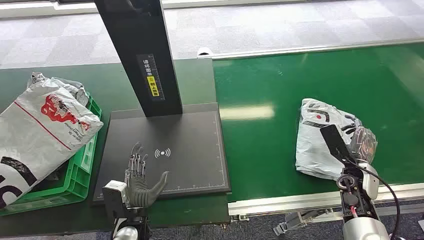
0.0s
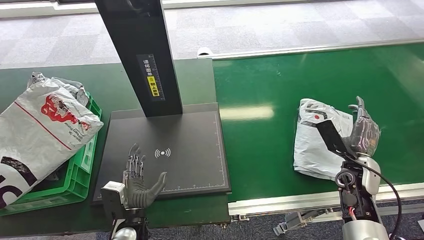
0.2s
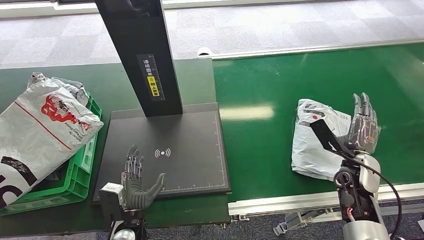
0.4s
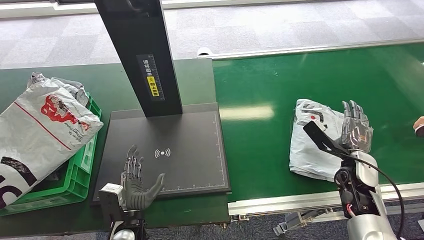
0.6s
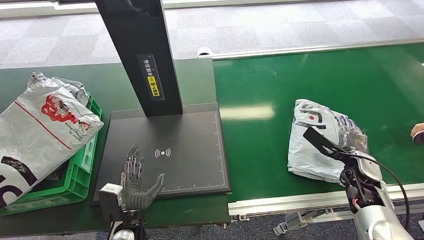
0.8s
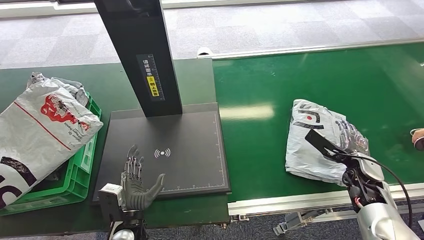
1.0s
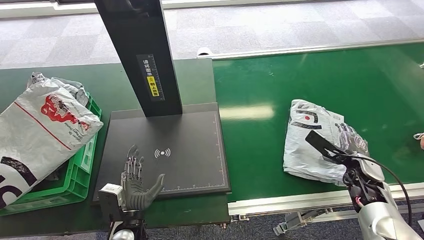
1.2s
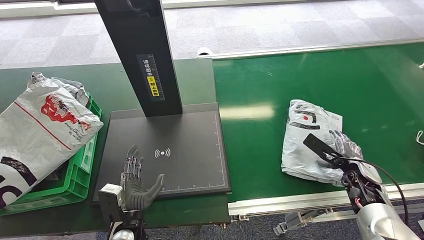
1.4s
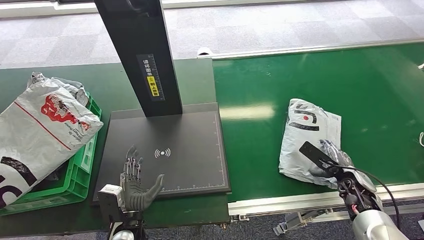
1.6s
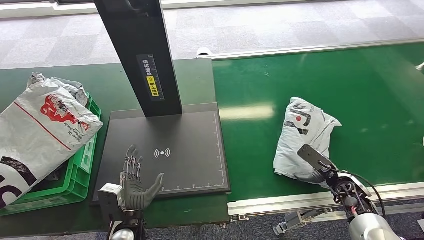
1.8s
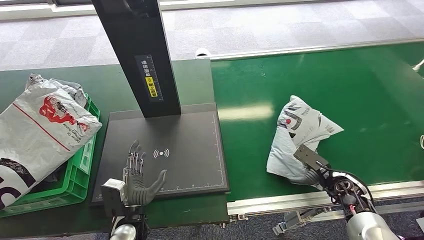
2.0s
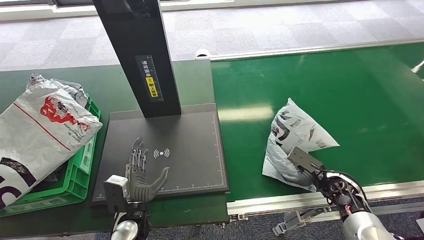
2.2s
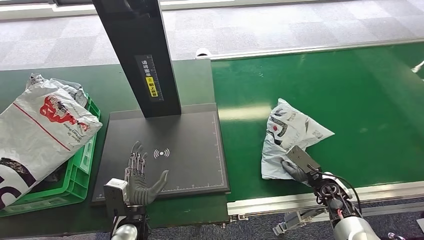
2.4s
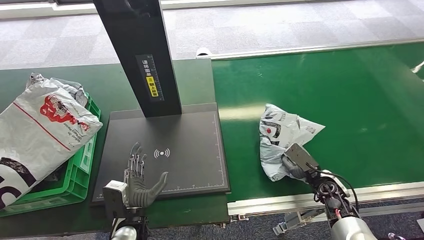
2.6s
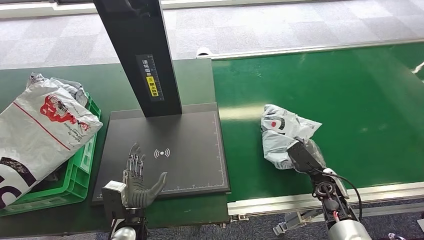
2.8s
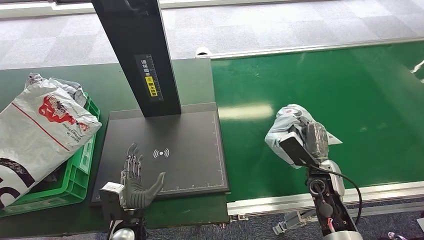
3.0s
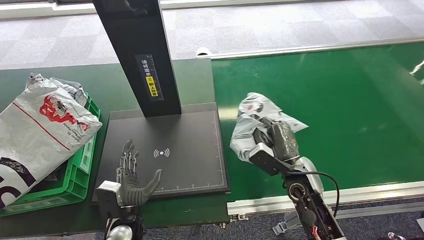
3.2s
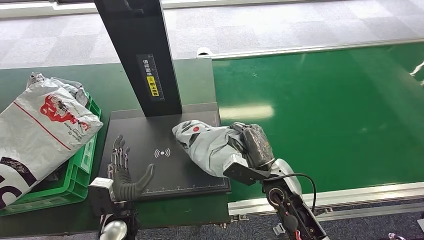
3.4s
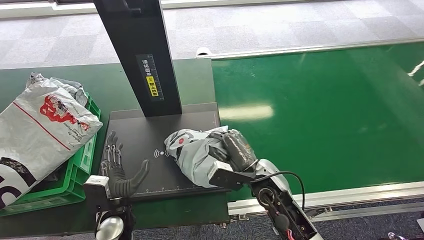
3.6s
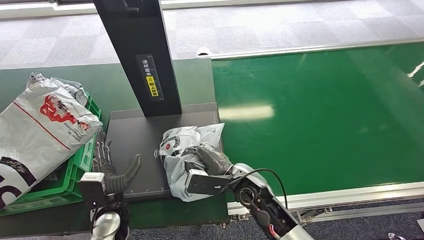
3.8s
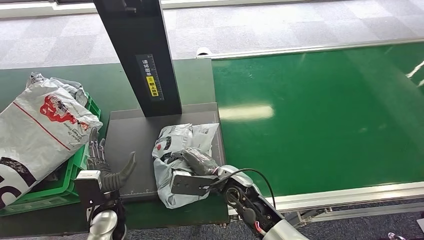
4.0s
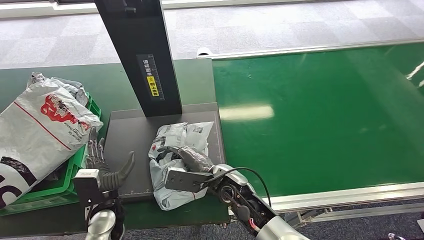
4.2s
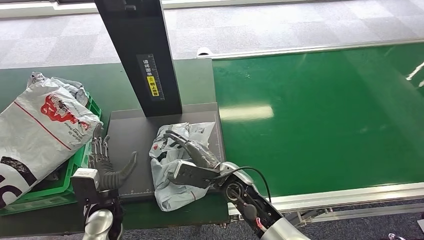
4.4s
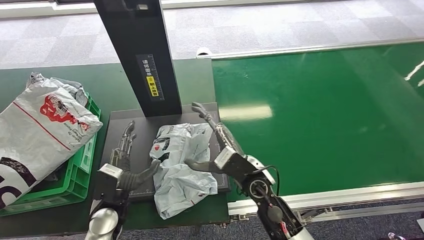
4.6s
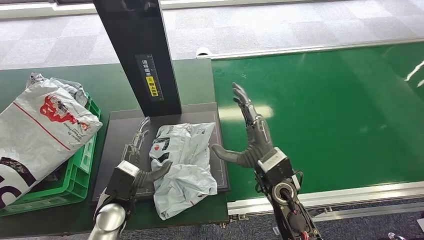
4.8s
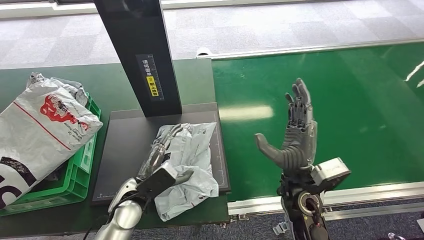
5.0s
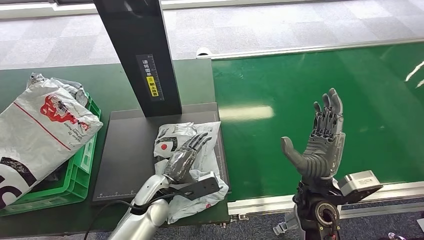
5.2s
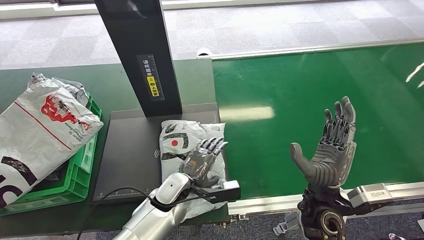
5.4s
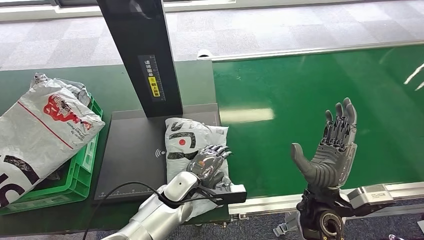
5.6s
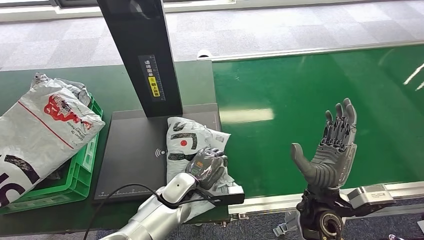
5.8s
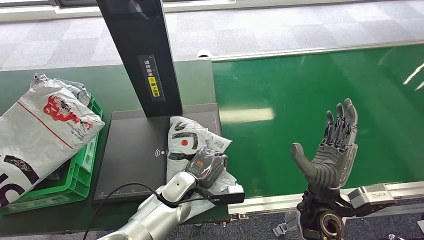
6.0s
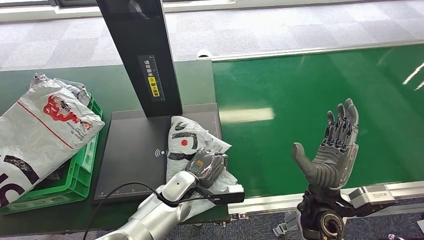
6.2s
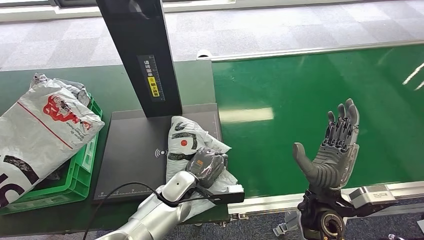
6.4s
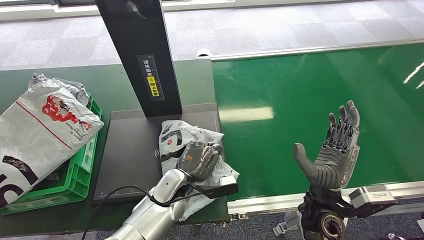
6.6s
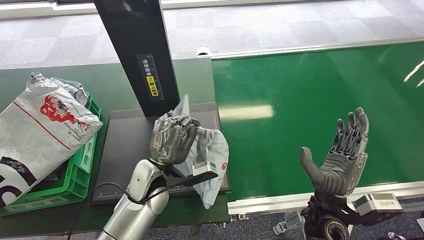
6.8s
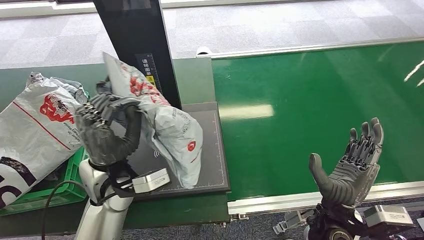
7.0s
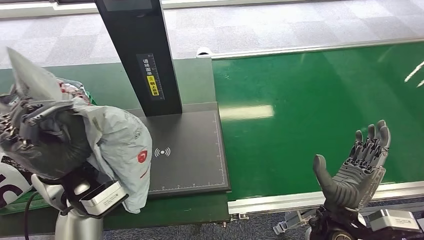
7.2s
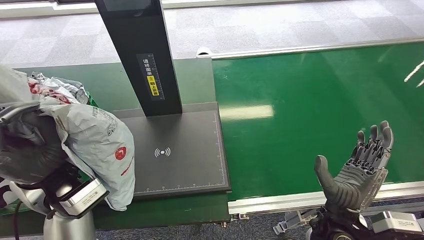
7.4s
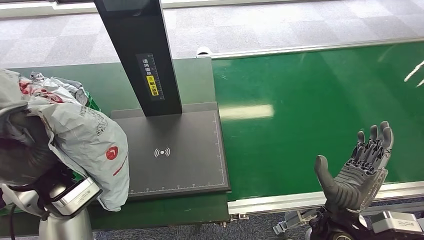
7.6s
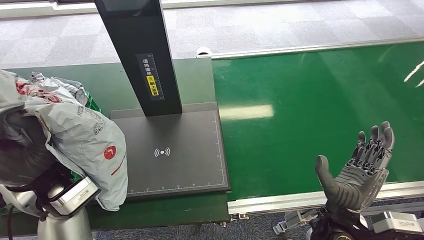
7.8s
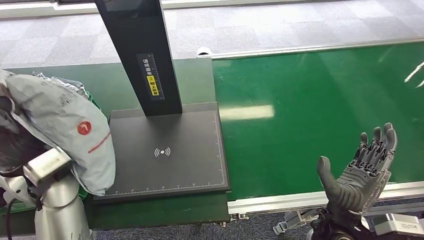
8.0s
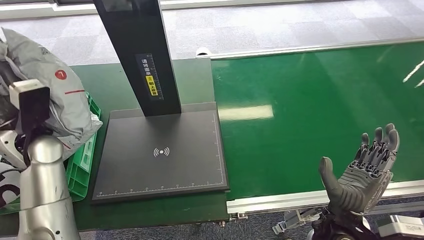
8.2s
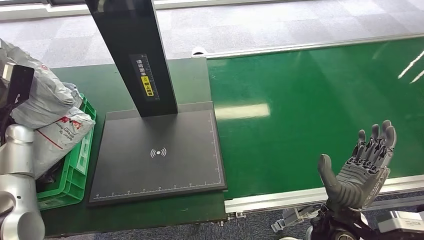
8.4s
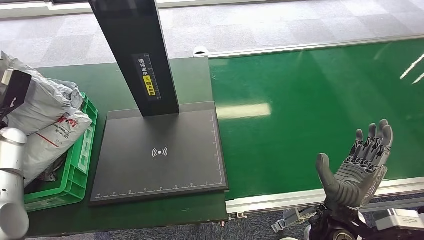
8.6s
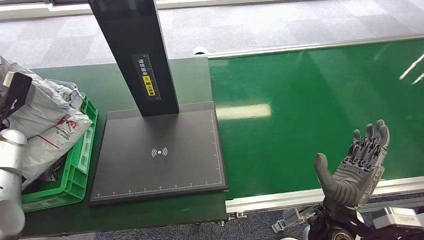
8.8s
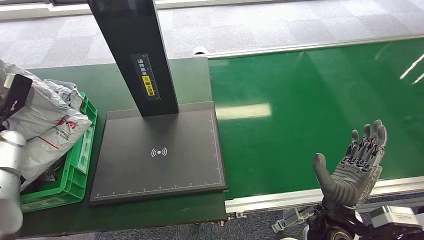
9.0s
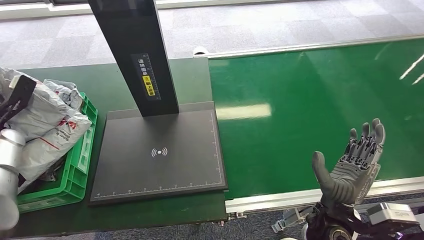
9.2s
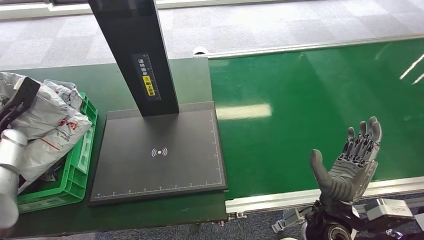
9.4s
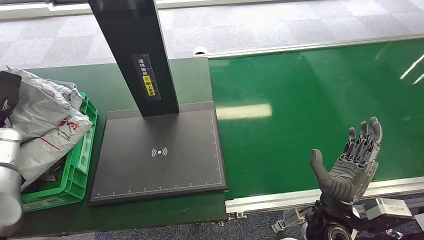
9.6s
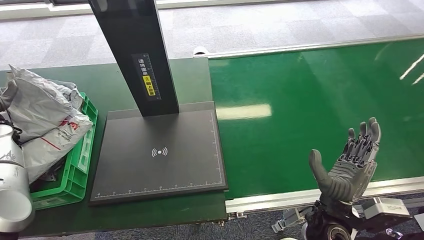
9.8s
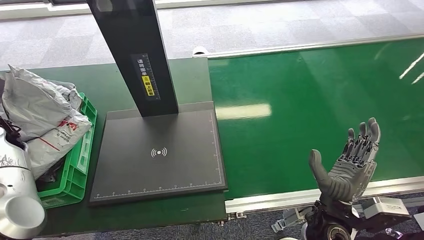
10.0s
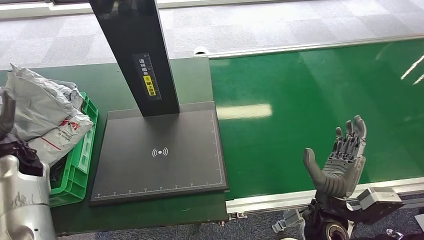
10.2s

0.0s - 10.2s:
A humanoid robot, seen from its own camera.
Step, 0.0s - 3.0s: Pick up the package from the conveyor belt.
Step, 3.2s - 4.4s: Place the package onto the inbound machine.
Step, 4.8s - 7.4s: Pick up the package from the inbound machine.
Step, 7.6s - 10.2s: Place the package into the parcel locker.
1.4s - 3.0s: The right hand goes approximately 10 cm to the left.
8.8s - 10.2s: The left hand travels to the right by roughly 10 cm.

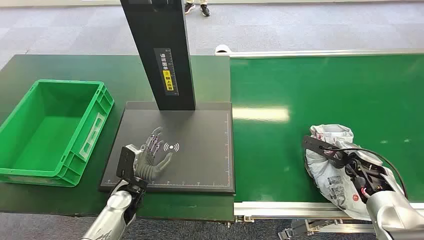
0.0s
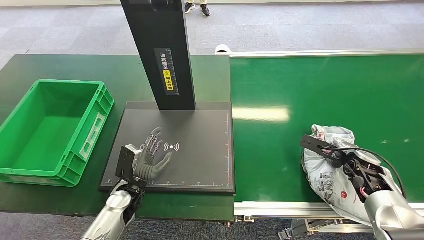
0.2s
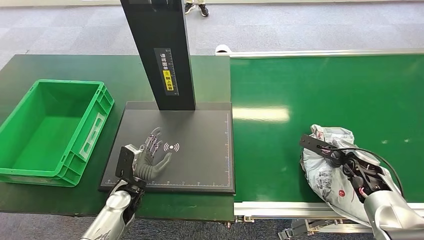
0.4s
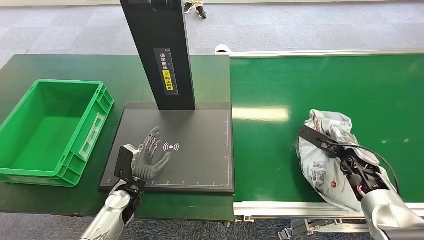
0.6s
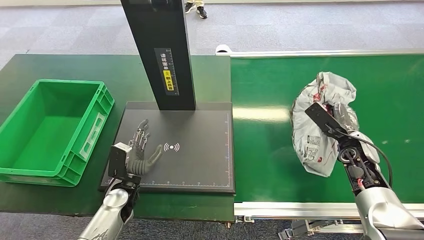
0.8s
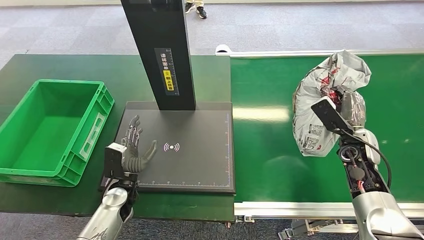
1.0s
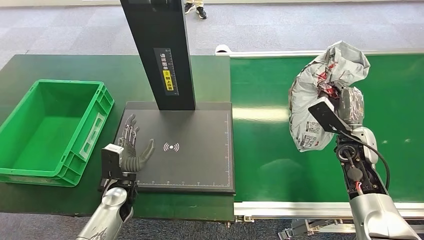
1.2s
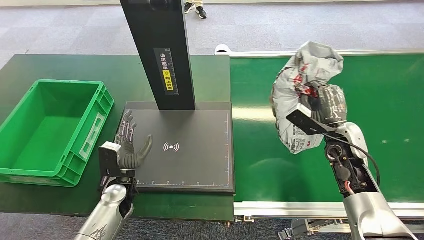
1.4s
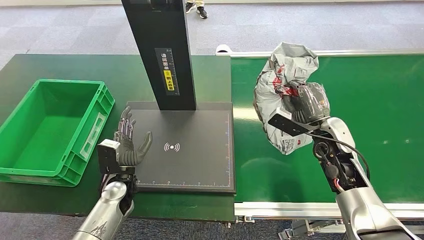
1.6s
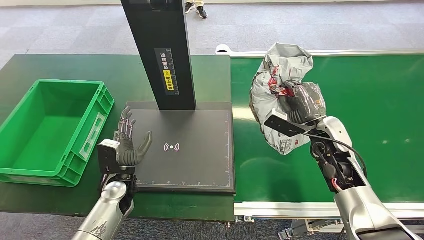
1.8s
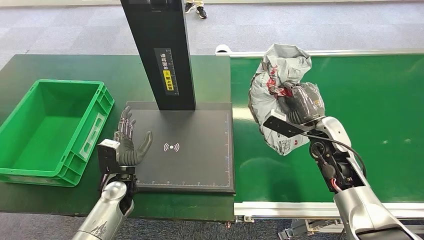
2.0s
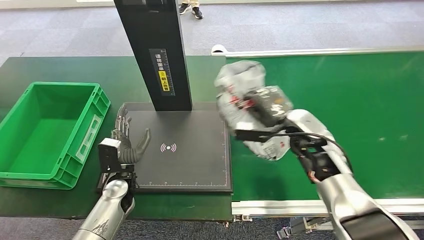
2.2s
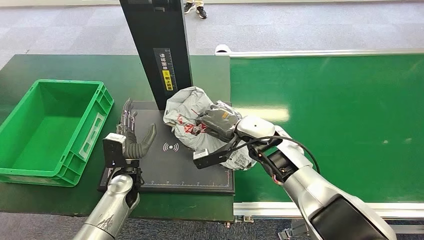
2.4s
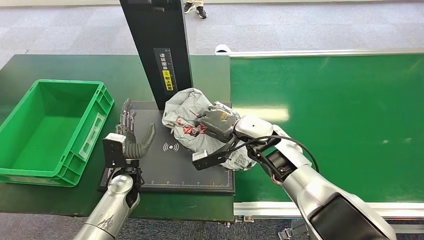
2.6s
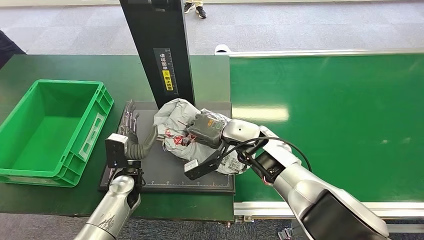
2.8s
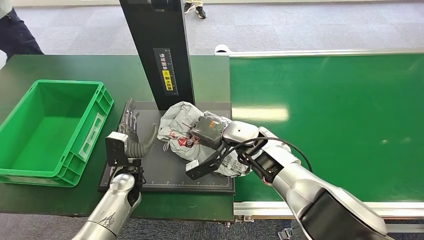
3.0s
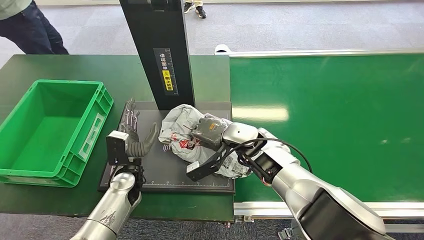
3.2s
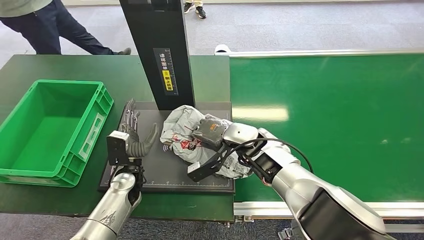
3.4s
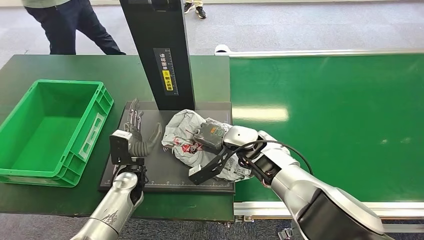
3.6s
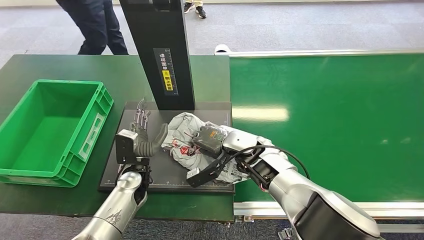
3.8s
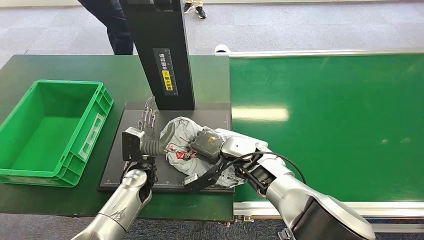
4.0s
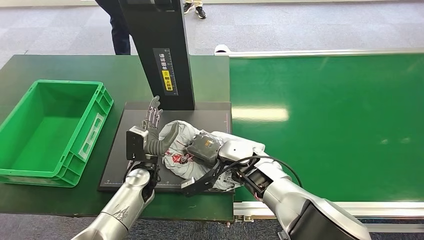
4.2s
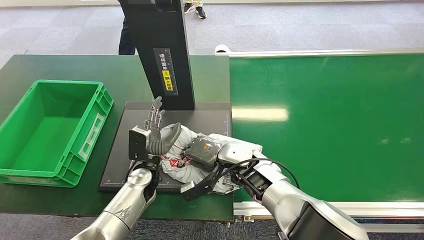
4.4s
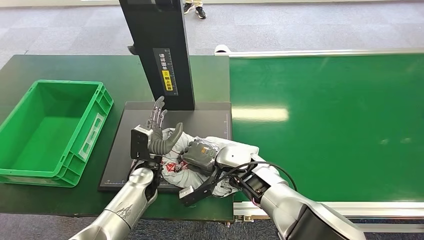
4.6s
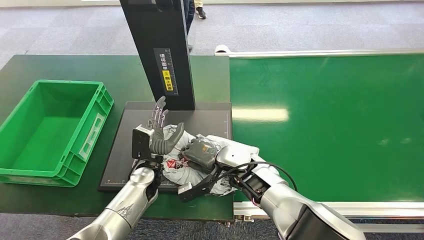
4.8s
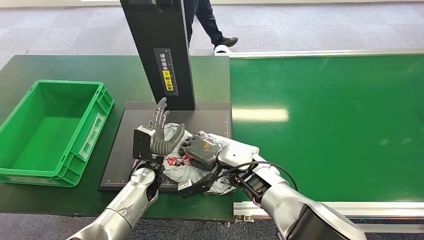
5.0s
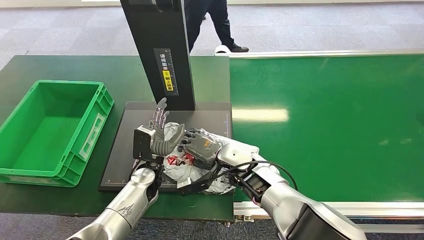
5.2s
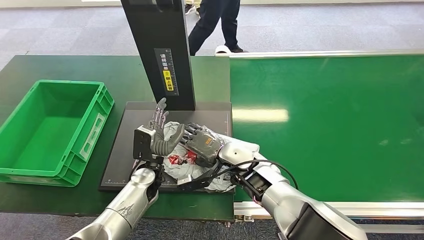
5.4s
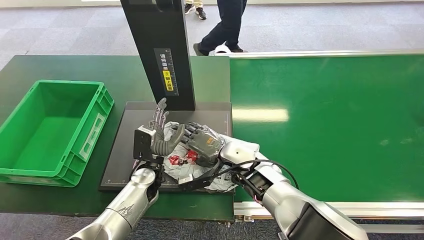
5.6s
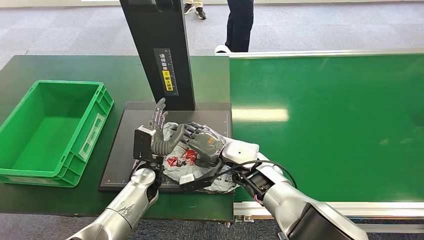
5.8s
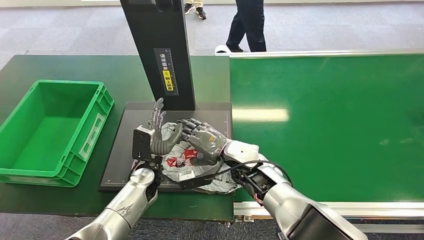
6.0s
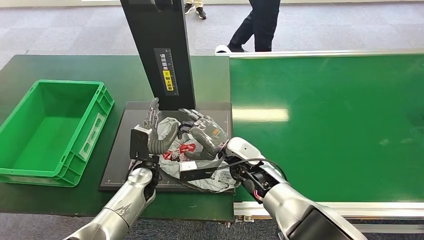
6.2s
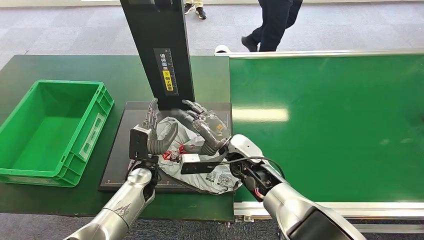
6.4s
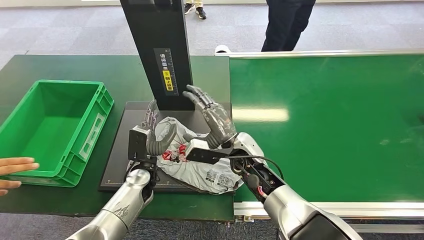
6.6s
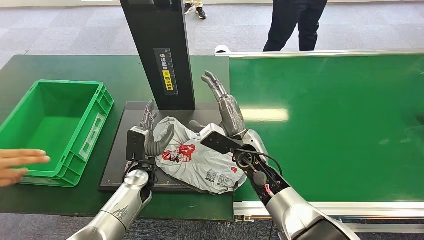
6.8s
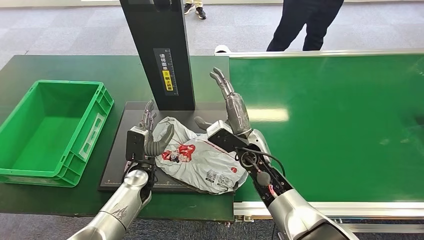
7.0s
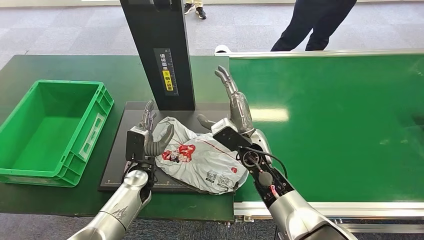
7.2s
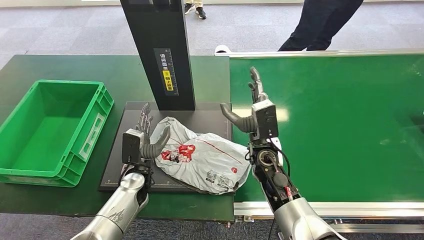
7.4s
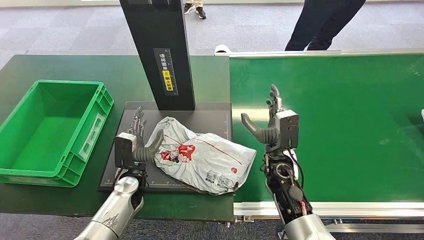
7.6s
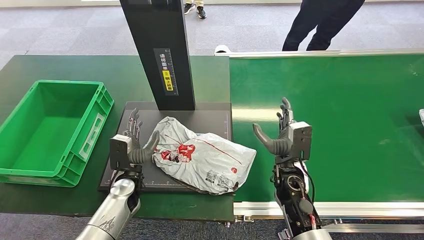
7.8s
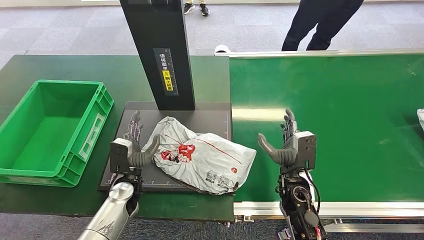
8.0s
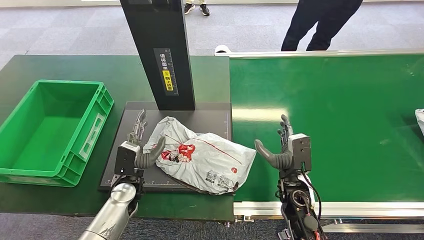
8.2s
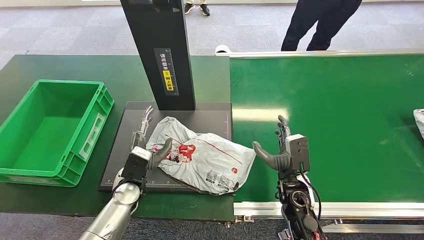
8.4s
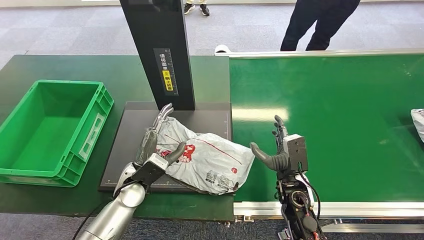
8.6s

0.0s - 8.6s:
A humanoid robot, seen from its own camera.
Step, 0.0s - 1.4s: Pick up the package from the conveyor belt.
Step, 1.6s - 6.6s: Place the package onto the inbound machine.
2.8s - 4.4s: The right hand goes about 5 cm downward. The left hand shifts by approximately 5 cm.
4.4s - 5.8s: There are only small adjustments of the hands.
7.2s - 8.6s: The right hand goes about 15 cm to the right, downward and backward.
